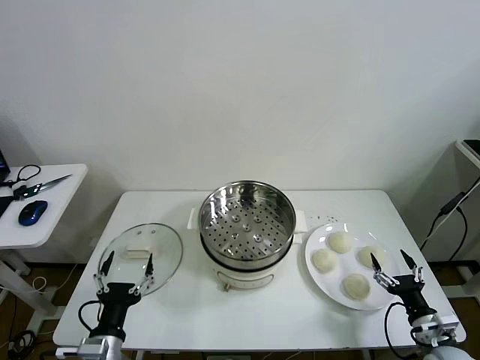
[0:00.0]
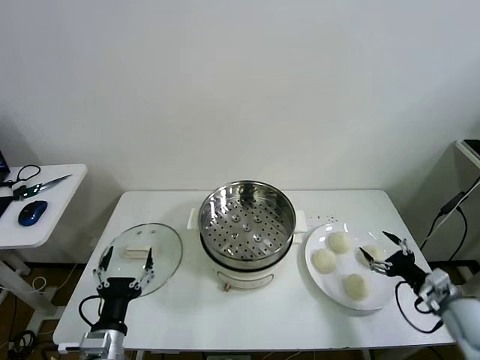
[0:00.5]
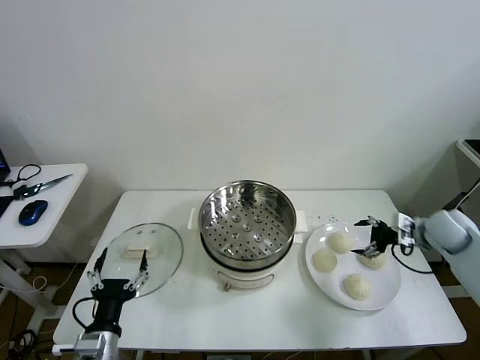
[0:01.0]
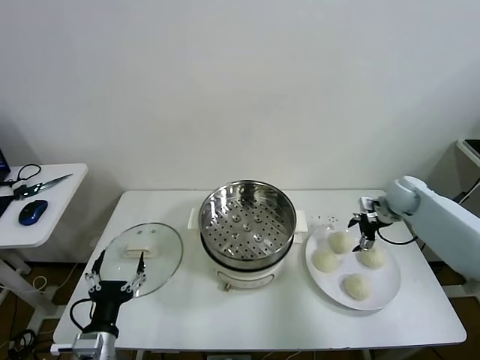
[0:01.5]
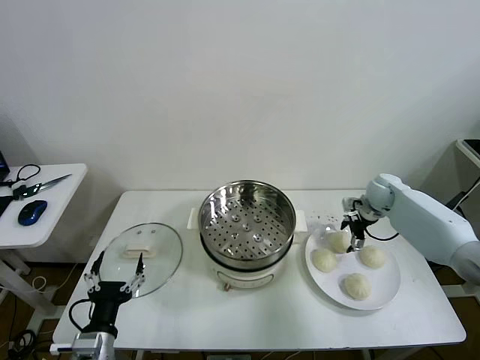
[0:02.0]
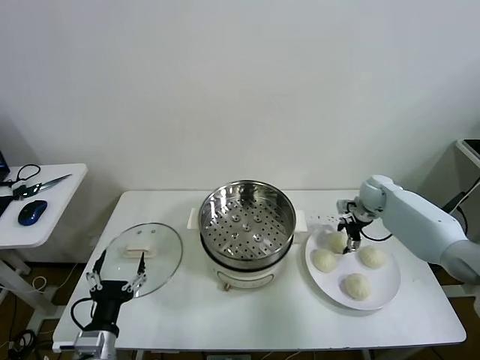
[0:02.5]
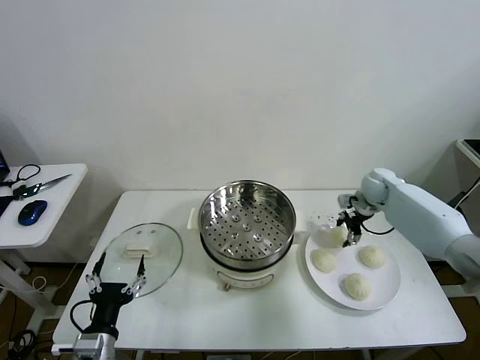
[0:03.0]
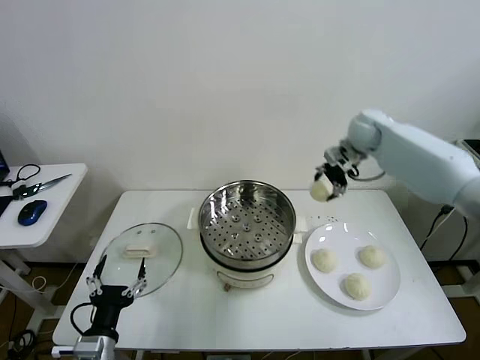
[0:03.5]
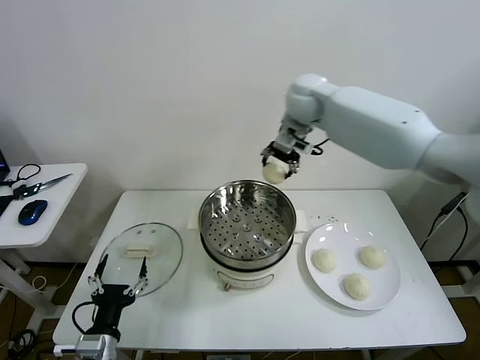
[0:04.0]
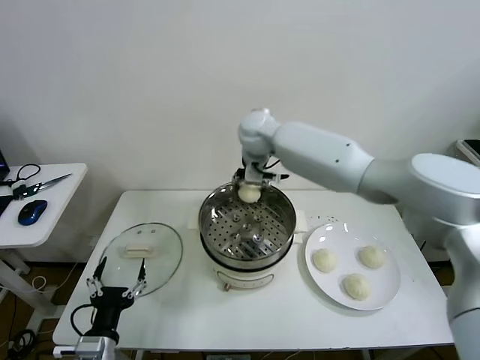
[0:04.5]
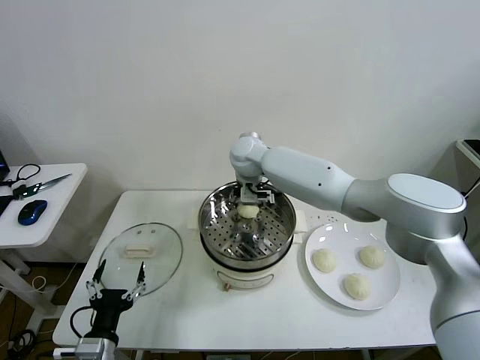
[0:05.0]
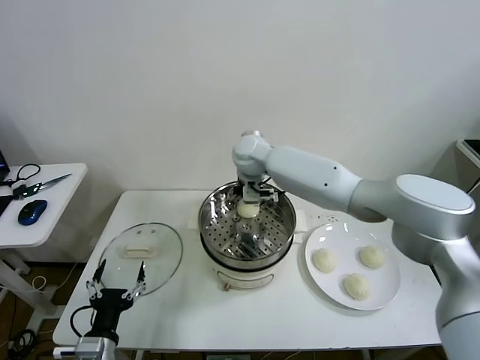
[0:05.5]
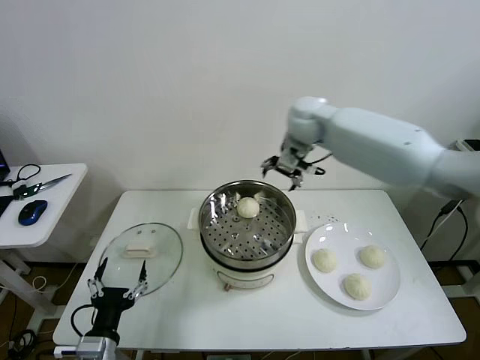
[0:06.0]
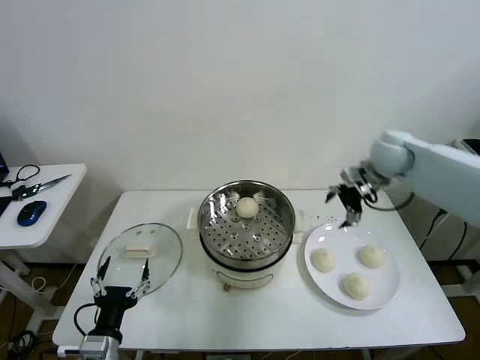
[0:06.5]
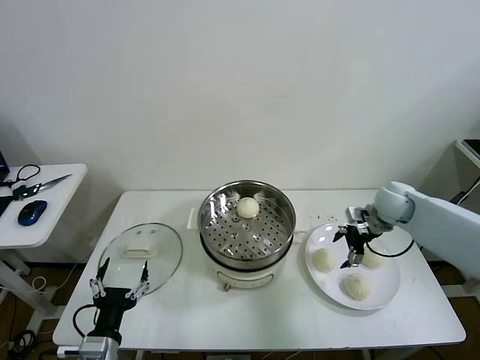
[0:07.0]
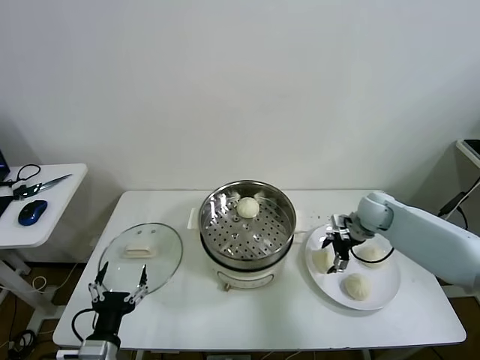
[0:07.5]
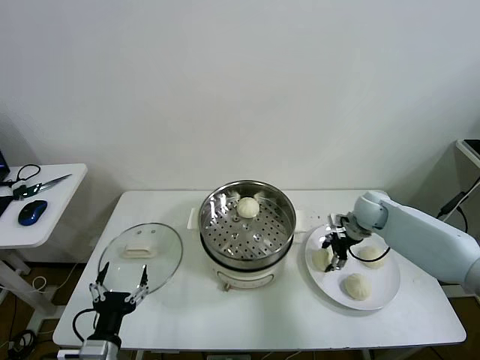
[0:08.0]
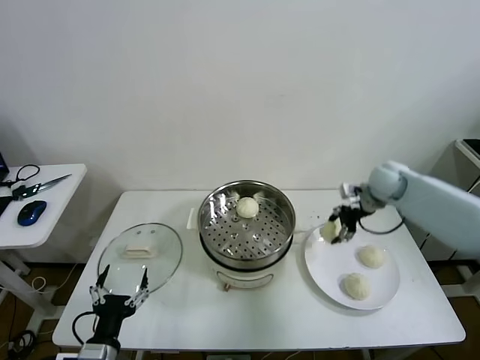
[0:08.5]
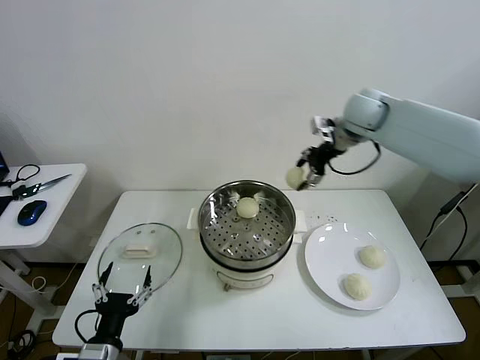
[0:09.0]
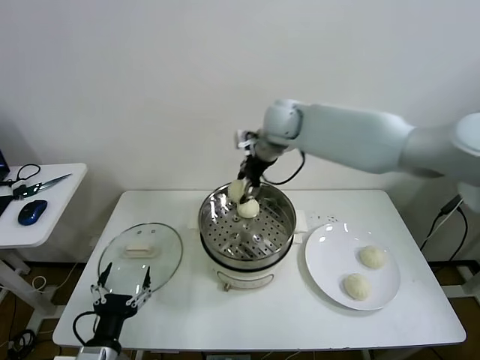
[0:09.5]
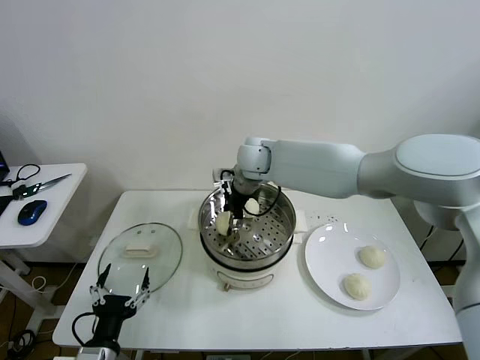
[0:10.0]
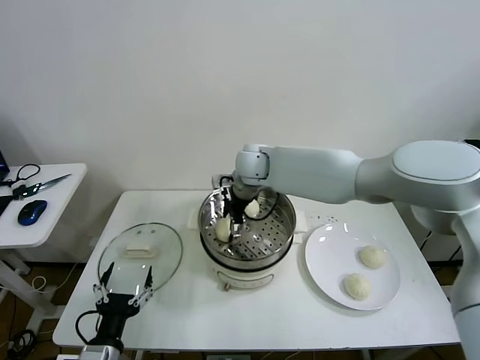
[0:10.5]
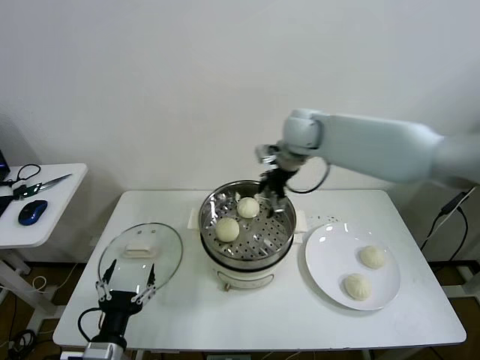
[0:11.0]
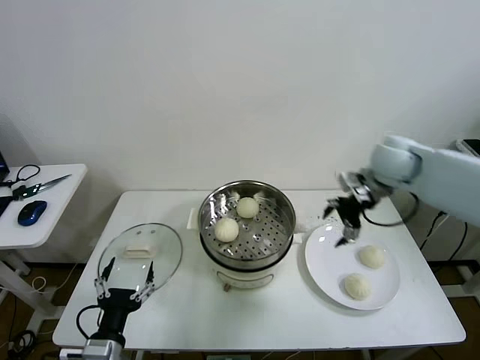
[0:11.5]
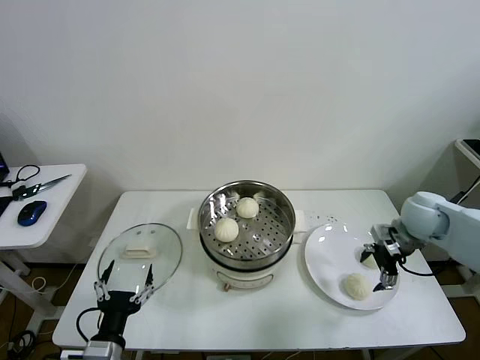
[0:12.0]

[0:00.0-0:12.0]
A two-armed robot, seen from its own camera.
Task of the whole recording: take steamed baozi put them in steamer then cover it.
Step, 0:00.0 to 0:02.5: Grasp the baozi in the plate with right gripper.
Step, 0:03.0 to 0:05.0: Place the baozi on the steamer with right gripper.
Step, 0:05.5 to 0:08.0: Grasp the baozi in the plate with right gripper.
Step, 0:08.5 to 0:10.5: Place the baozi on the steamer with right gripper.
0:02.0 to 0:04.0: The right gripper moves to the left and upward, roughly 40 cm, and closes its fingers.
0:04.0 to 0:06.0: The right gripper heads to the right, covering about 10 cm, and opens.
0:06.0 to 0:08.0: The right gripper shifts about 30 cm downward and to the right, and closes.
0:08.0 to 0:10.0: The right gripper shifts approximately 35 cm to the left and upward.
0:10.0 to 0:12.0: The right gripper shifts roughly 35 cm to the right, and opens up.

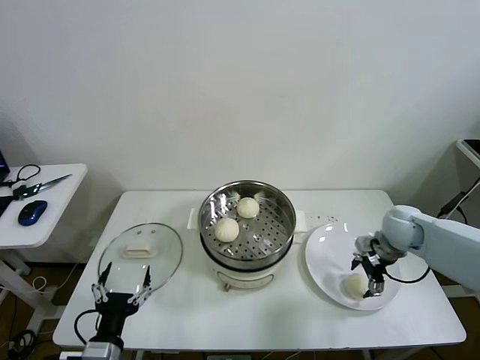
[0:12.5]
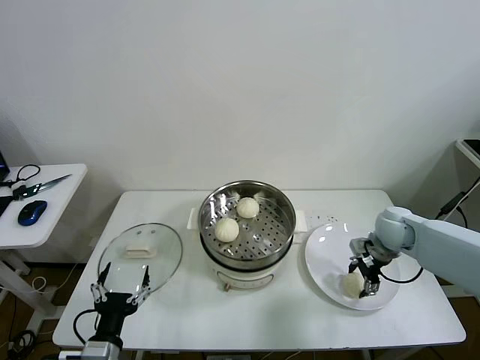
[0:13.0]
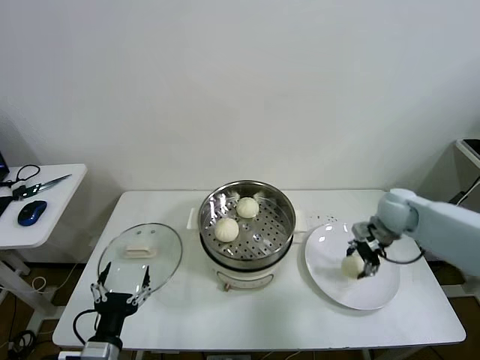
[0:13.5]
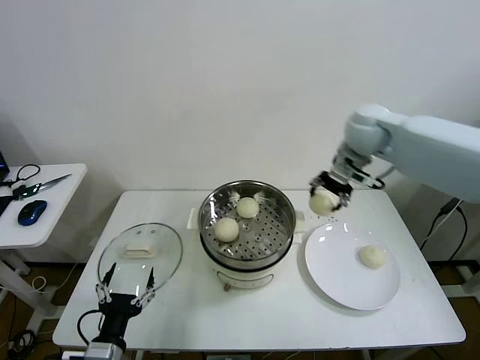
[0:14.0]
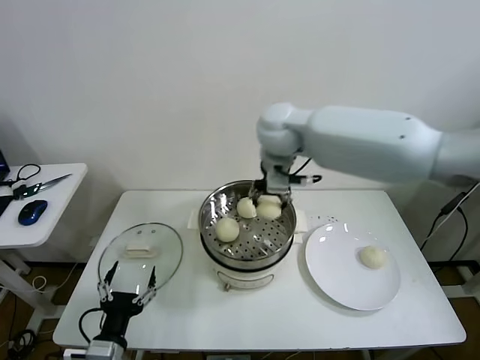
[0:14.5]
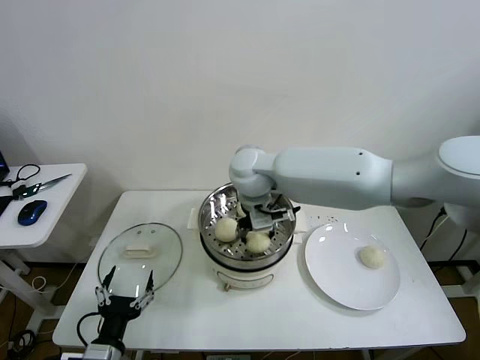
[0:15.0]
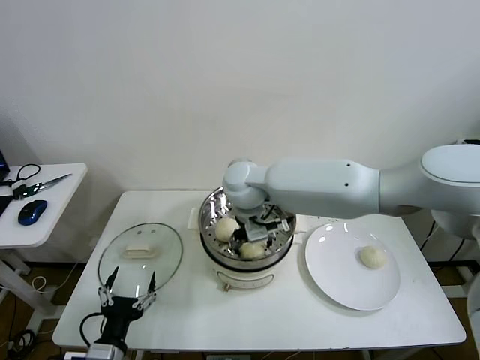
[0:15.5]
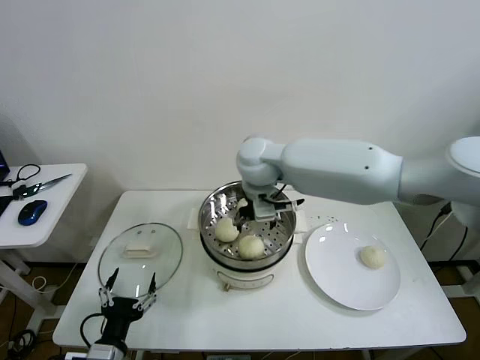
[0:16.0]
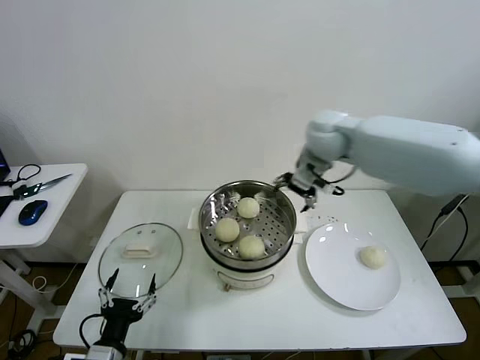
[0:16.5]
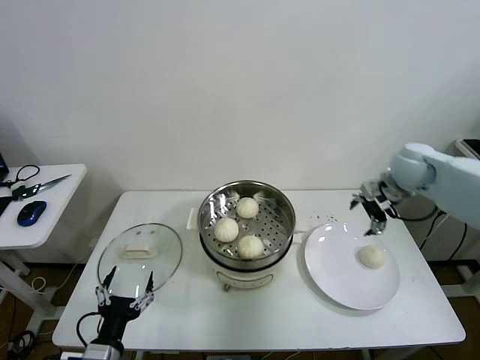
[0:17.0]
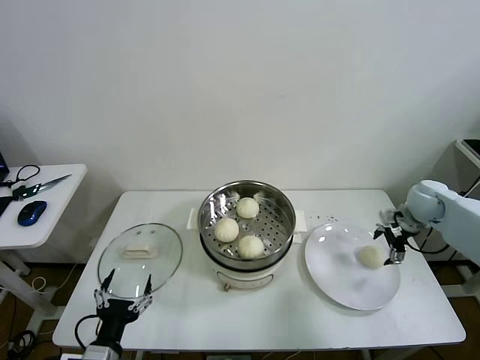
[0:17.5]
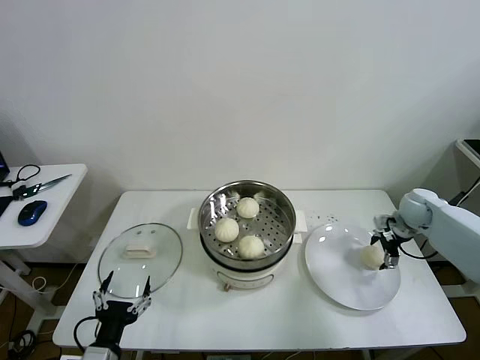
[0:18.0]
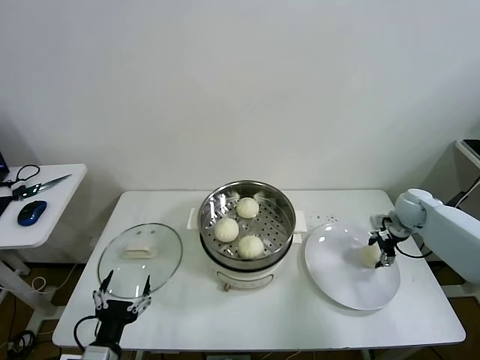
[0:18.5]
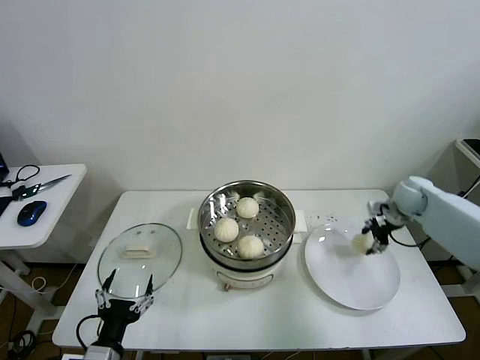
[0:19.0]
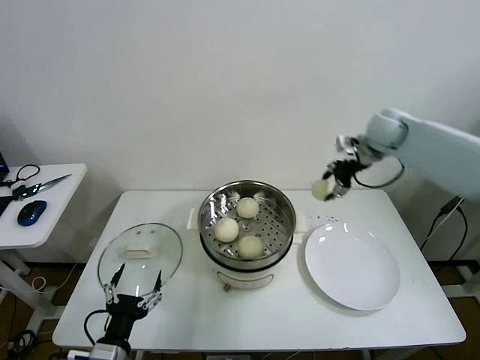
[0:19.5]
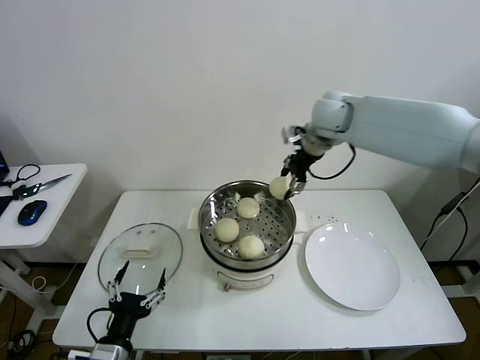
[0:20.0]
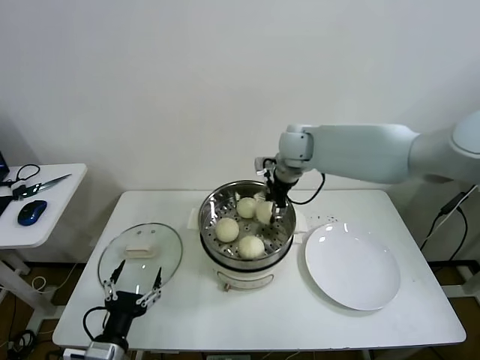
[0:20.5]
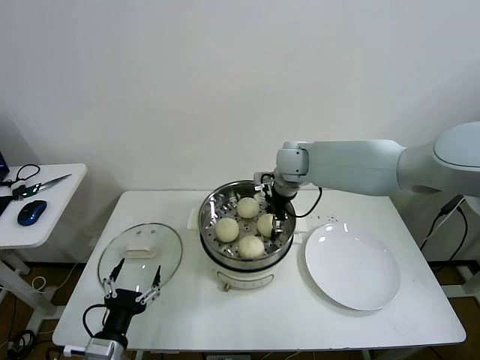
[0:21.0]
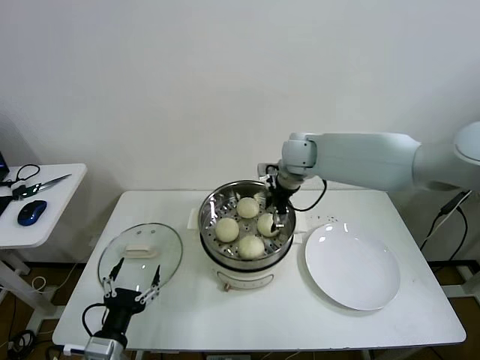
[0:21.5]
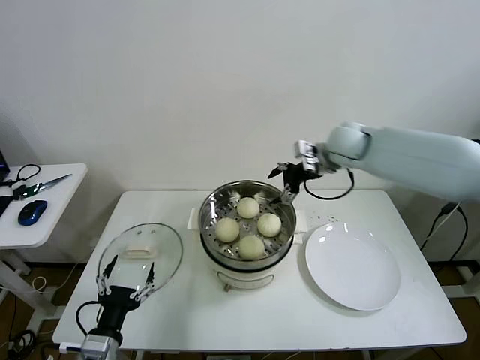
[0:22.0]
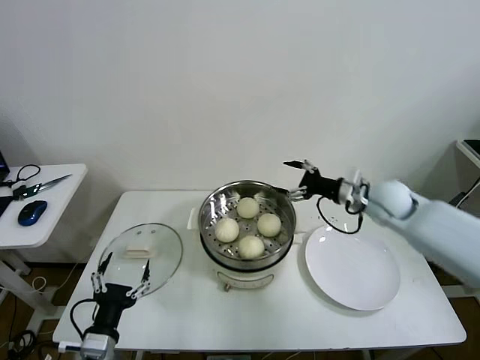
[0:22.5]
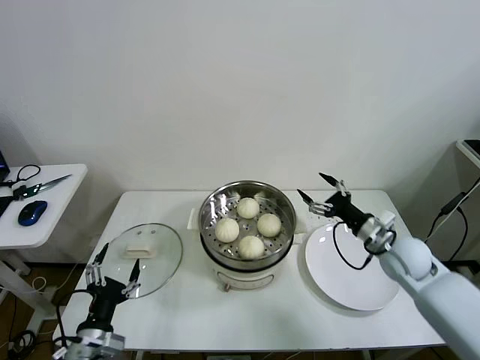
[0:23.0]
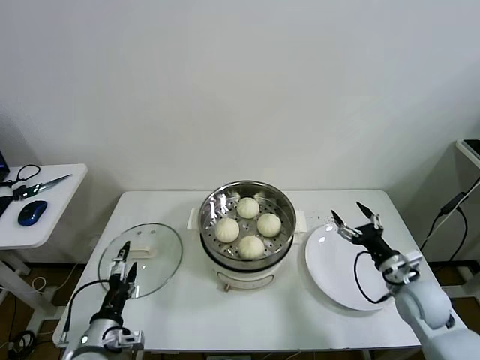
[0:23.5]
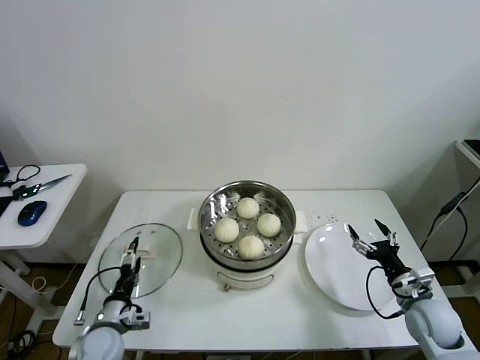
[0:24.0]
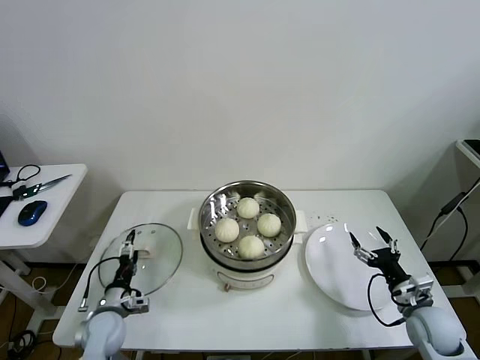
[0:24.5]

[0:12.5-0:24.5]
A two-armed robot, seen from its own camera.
Task of the whole recording: take steamed baozi put them in steamer then cover it.
Step, 0:13.5 to 0:15.5: Place the baozi on the steamer with right gripper.
Step, 0:16.0 to 0:18.5: Grasp the baozi in the plate with right gripper.
Step, 0:19.0 to 0:21.0: Place the baozi on the steamer with right gripper.
0:12.5 to 0:14.5: The right gripper travels to the left and upward by some 40 cm, and closes up.
0:14.5 to 0:16.5: The right gripper moves to the right, some 15 cm, and opens its fingers.
0:16.5 to 0:18.5: The right gripper moves to the right and downward, approximately 35 cm, and closes up.
0:18.5 to 0:20.5: The right gripper moves to the left and upward, some 35 cm.
0:20.5 to 0:22.5: The right gripper moves to the right, backward and downward, approximately 25 cm, and opens.
0:22.5 to 0:24.5: The left gripper is displaced forward, downward and to the left by approximately 20 cm, while the right gripper shifts about 30 cm backward and downward.

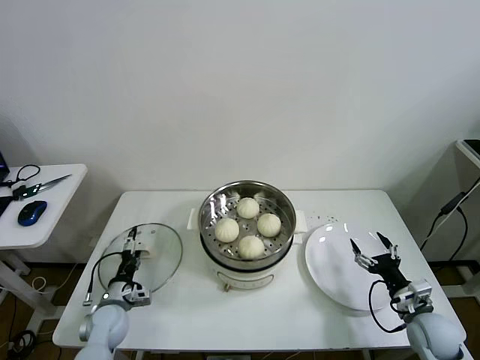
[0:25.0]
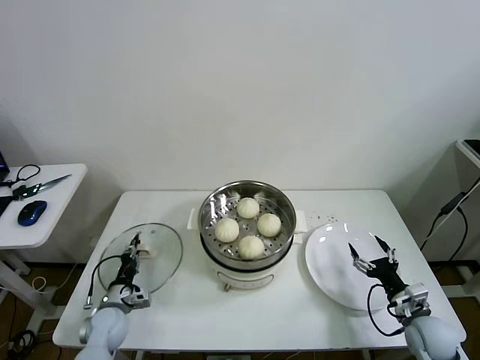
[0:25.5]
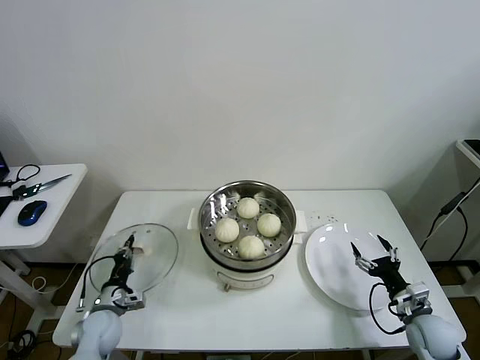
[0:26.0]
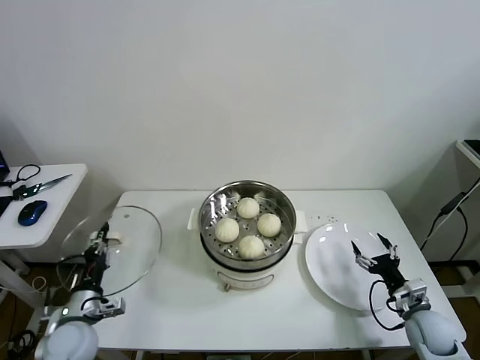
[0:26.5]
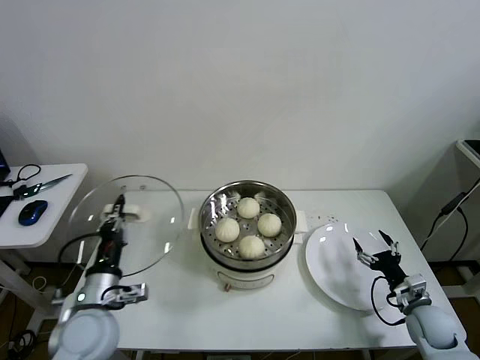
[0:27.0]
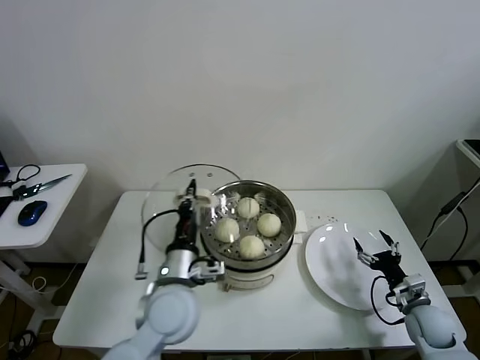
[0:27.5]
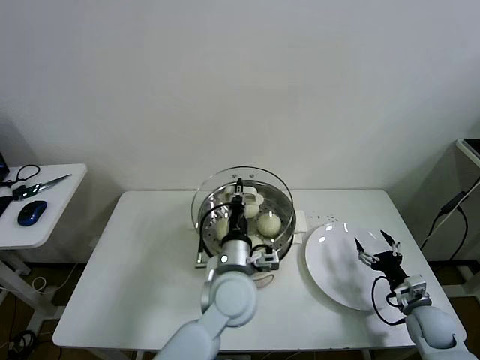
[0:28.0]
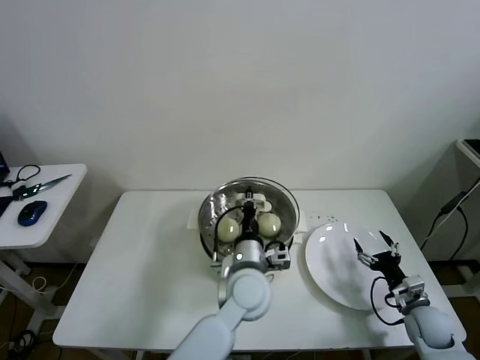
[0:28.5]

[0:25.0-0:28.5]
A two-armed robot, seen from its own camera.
Task of the whole recording: take steamed baozi put them in steamer then cover it.
0:25.0 to 0:27.0: The left gripper goes roughly 20 cm upward and backward, and closes up.
0:27.0 to 0:28.5: The left gripper travels to the right by approximately 30 cm.
